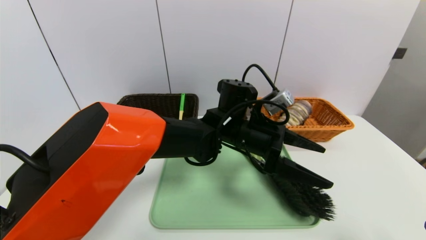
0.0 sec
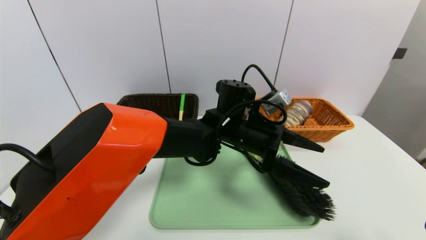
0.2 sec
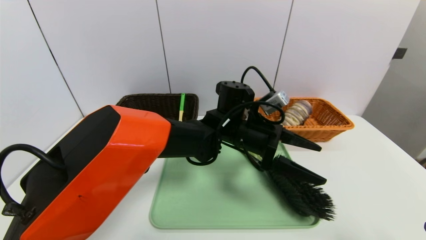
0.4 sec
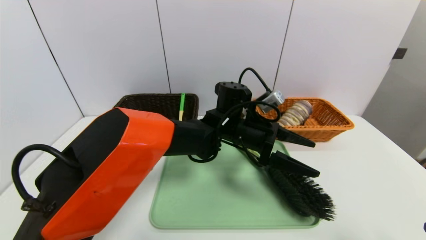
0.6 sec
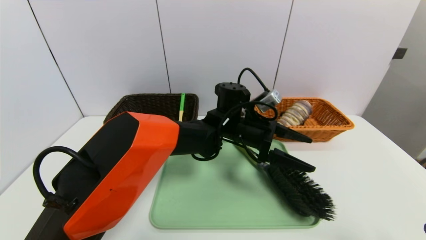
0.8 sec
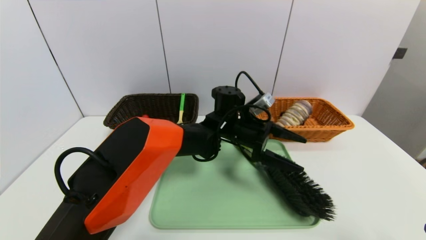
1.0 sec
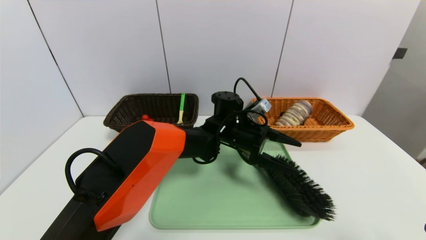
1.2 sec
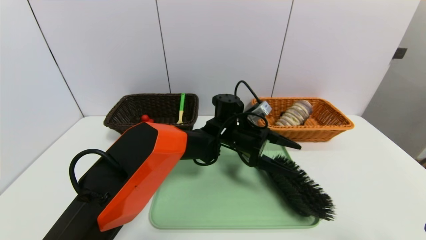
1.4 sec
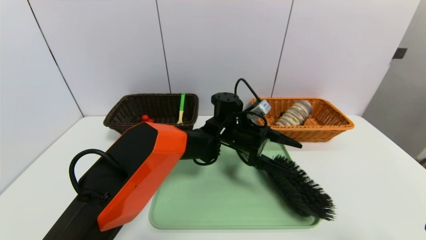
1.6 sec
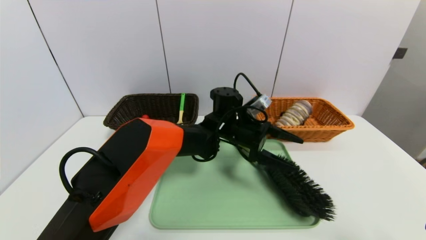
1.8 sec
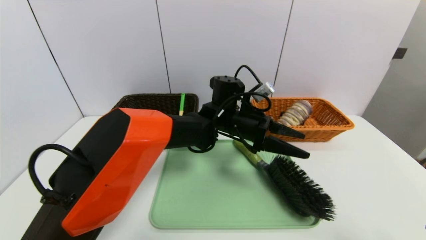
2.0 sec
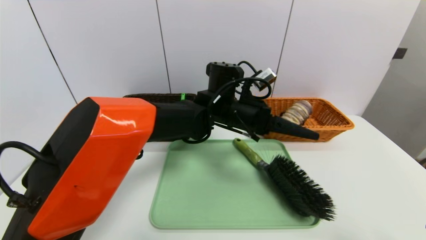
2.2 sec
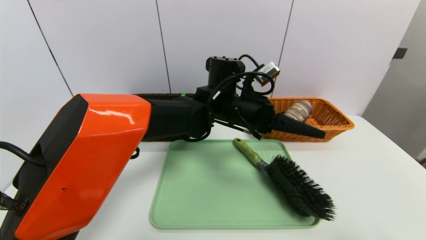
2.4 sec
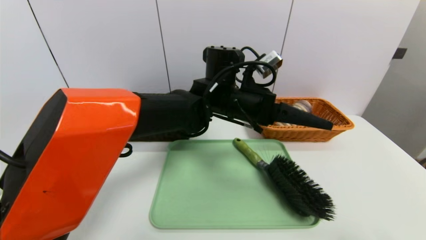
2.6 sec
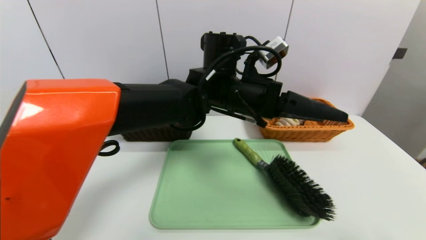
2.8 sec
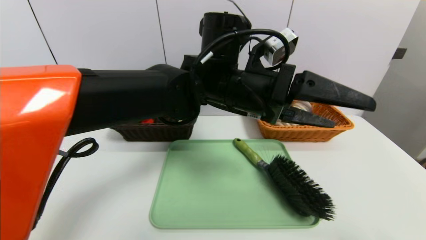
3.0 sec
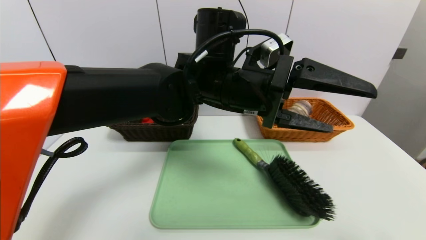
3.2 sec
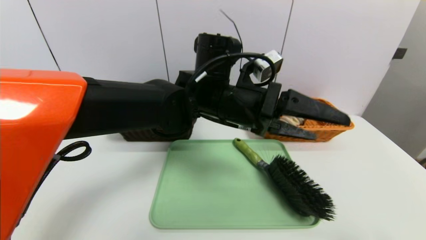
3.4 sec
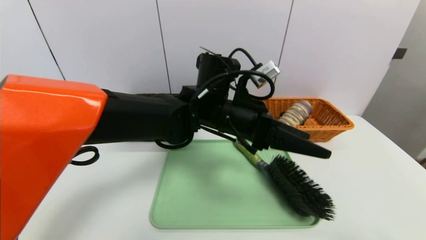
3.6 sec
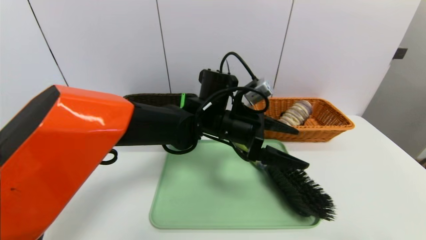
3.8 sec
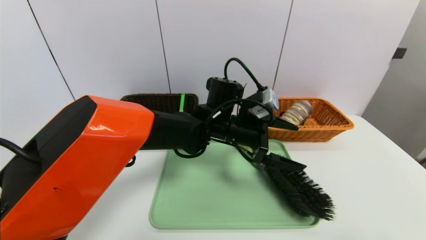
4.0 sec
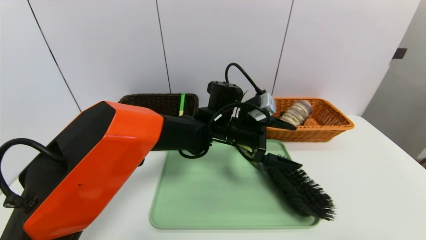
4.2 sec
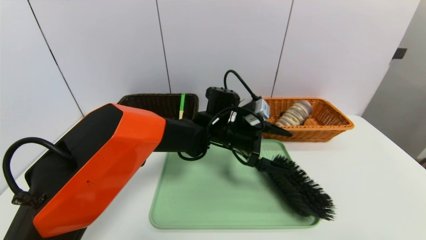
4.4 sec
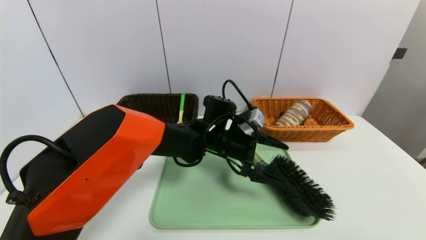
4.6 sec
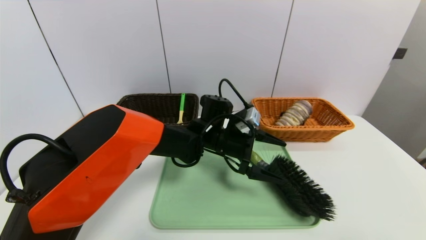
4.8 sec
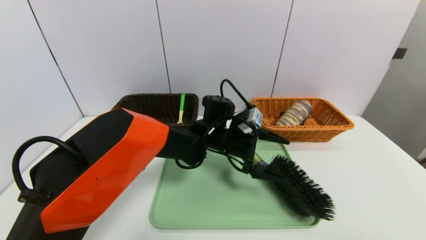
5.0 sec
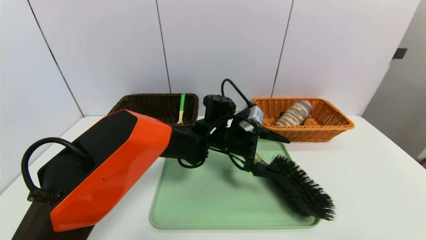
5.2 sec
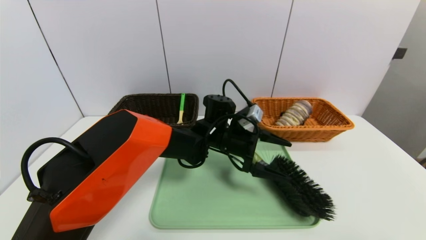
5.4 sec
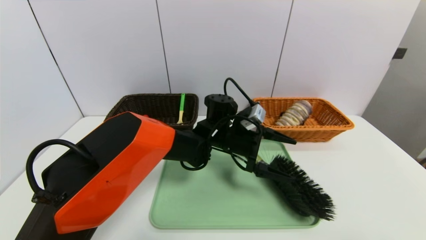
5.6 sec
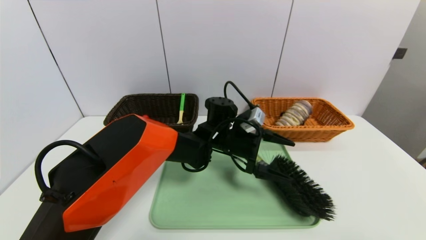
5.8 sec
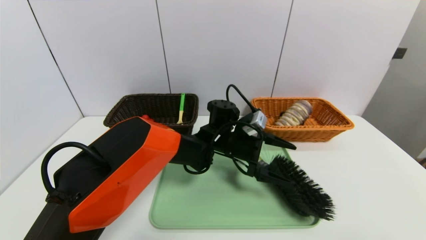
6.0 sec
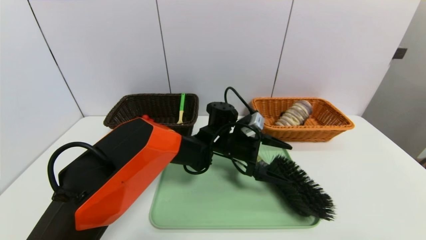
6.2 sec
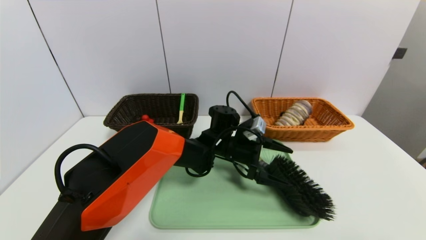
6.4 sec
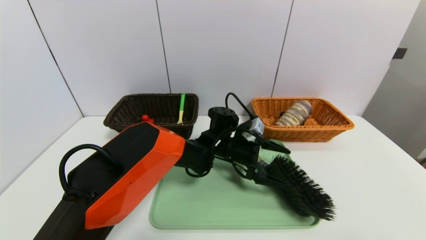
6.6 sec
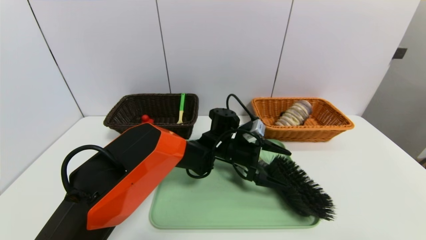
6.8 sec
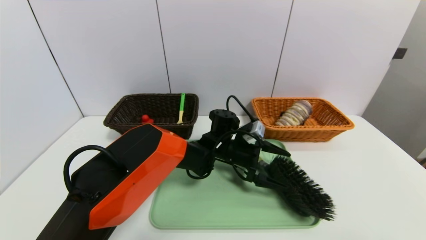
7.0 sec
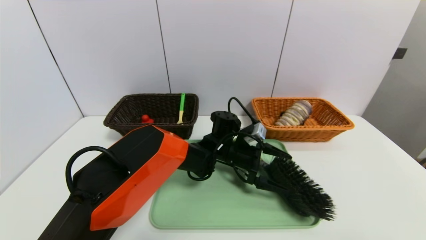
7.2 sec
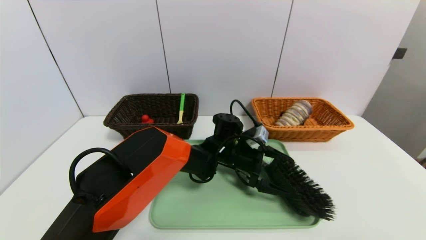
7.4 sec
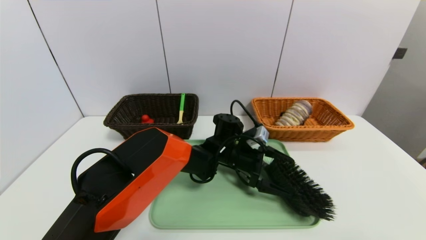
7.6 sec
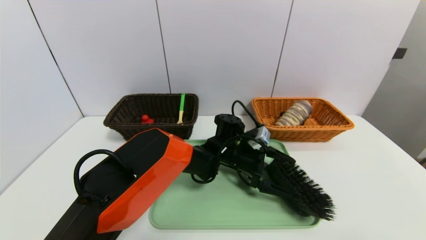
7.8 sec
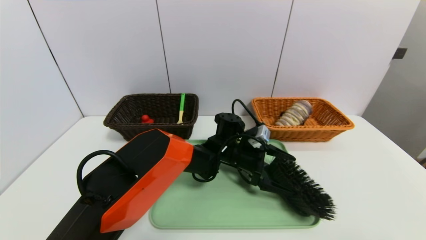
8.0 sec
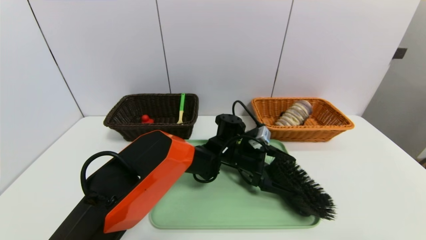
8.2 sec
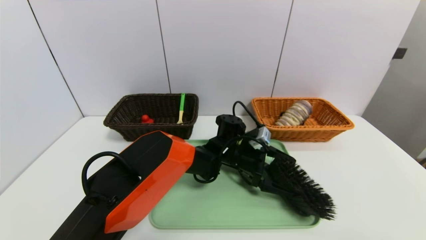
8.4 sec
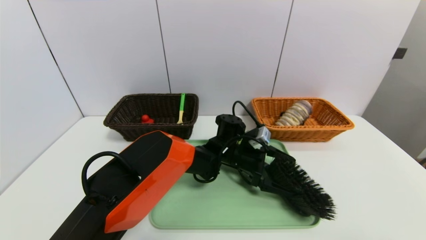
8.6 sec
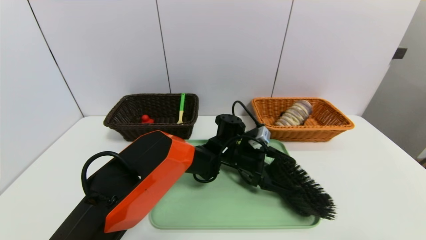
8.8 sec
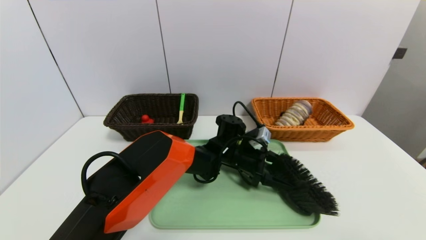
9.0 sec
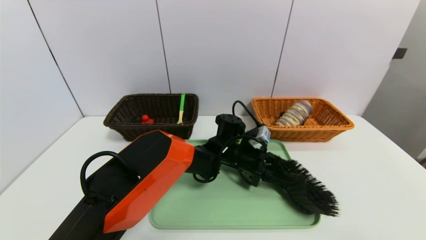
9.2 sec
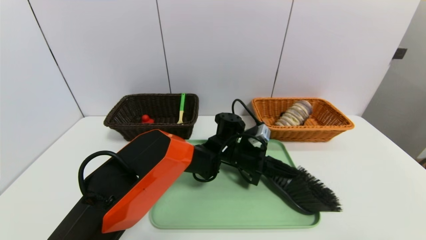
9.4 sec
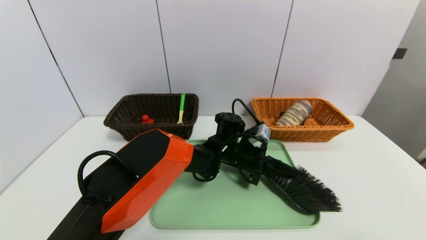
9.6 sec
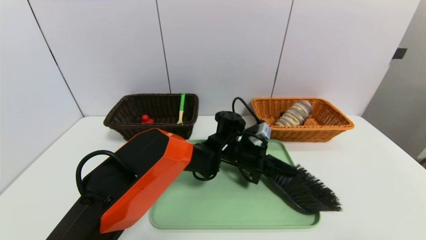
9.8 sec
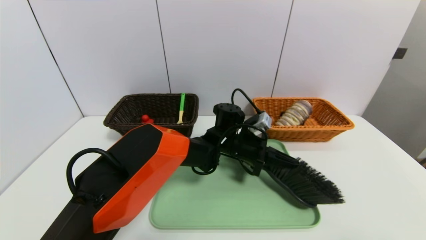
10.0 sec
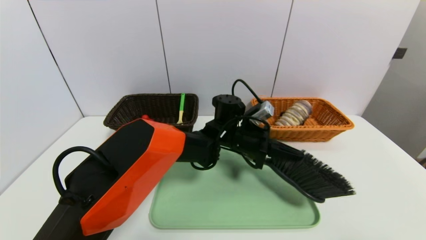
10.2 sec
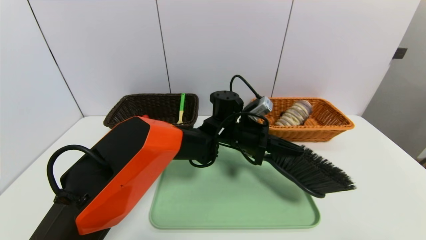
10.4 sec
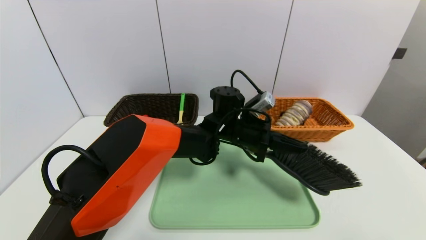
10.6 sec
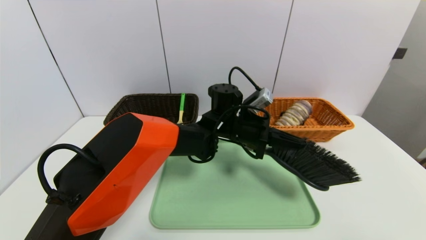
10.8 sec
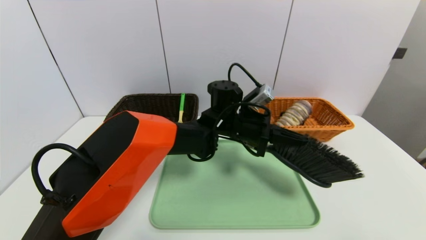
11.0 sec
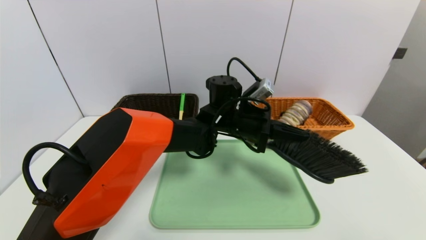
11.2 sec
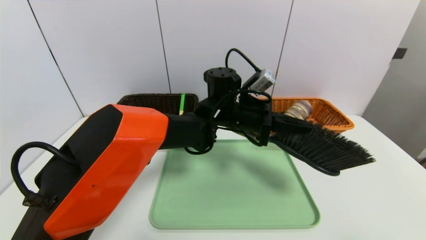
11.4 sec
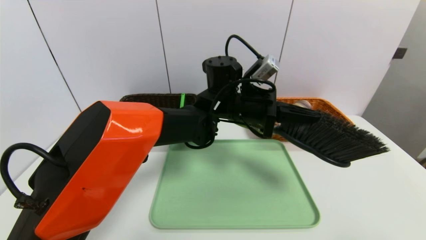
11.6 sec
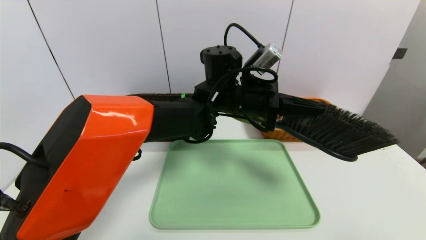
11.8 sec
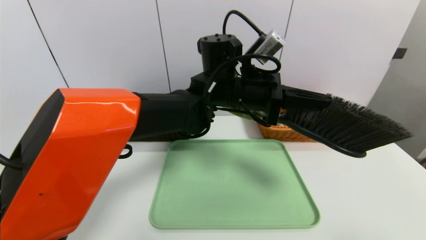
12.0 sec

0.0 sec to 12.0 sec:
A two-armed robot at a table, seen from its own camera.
Task of the whole recording: place the food in the right basket with the right gripper, and place the non food items in the left basket with the left gripper.
0.0 sec to 1.6 sec: The left gripper travels forward and downward by roughly 10 cm.
1.6 sec to 3.0 sec: The left gripper goes approximately 20 cm upward and backward.
3.0 sec to 4.4 sec: The left gripper travels downward and forward by some 15 cm.
4.4 sec to 6.0 sec: There are only small adjustments of the grippers.
6.0 sec to 7.6 sec: The grippers stay close to where they were, moving slightly.
7.6 sec to 9.0 sec: The left gripper closes its fingers.
9.0 sec to 10.4 sec: The left gripper is displaced upward by roughly 5 cm, and closes.
10.4 sec to 12.0 sec: The left gripper heads upward, covering some 10 cm.

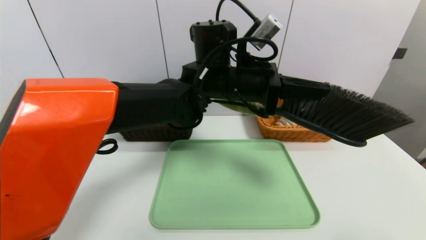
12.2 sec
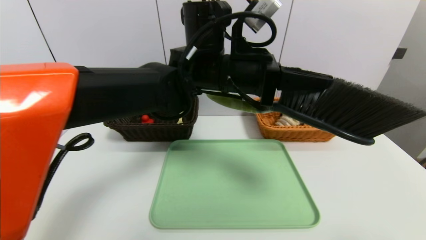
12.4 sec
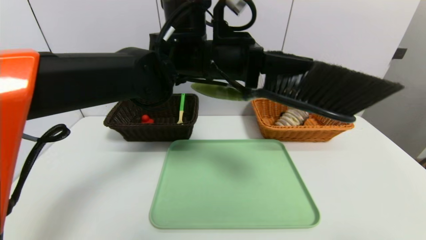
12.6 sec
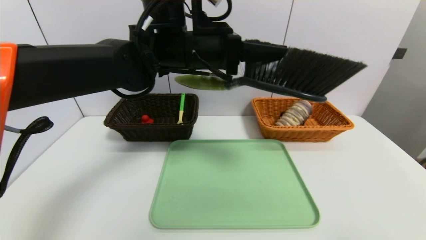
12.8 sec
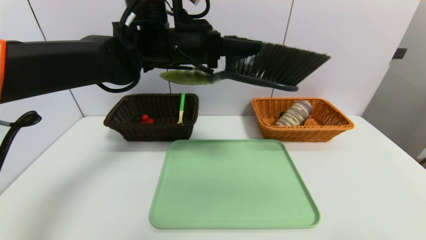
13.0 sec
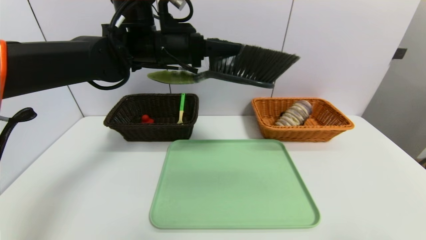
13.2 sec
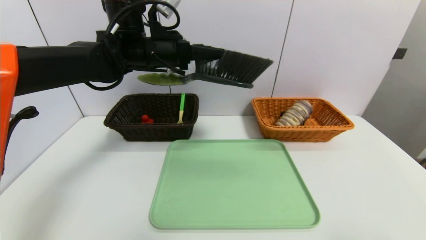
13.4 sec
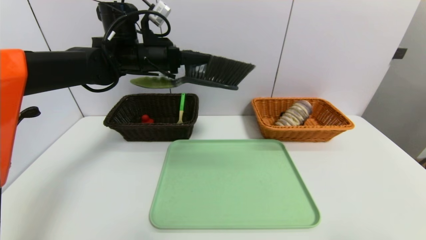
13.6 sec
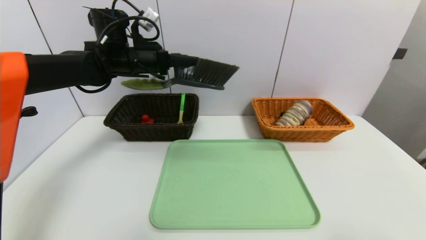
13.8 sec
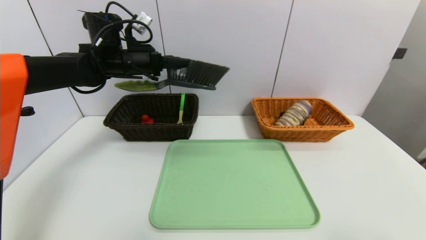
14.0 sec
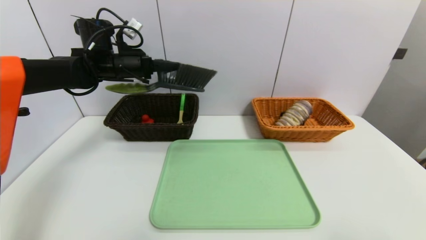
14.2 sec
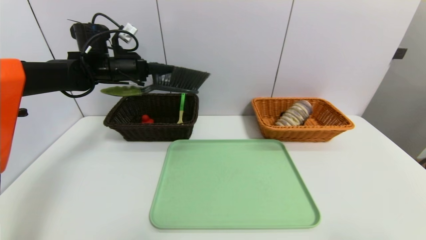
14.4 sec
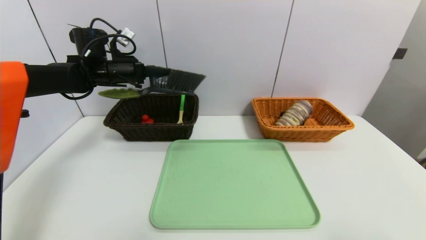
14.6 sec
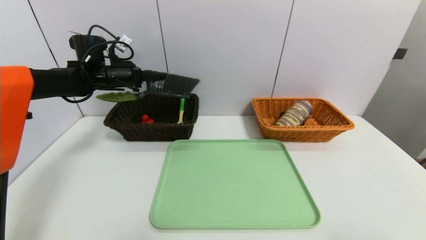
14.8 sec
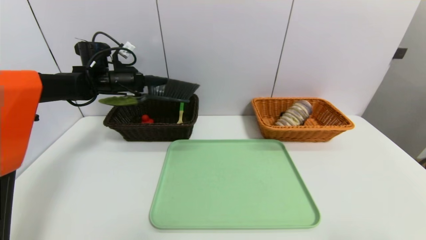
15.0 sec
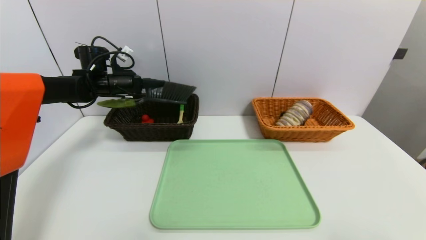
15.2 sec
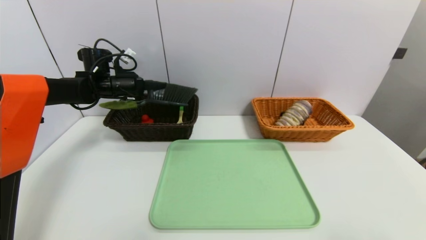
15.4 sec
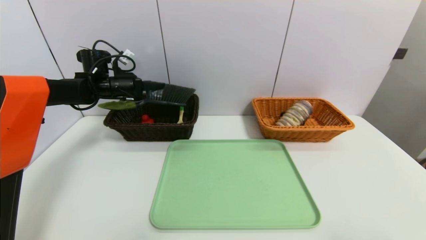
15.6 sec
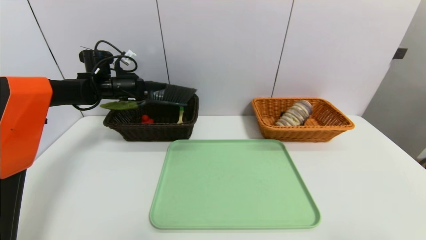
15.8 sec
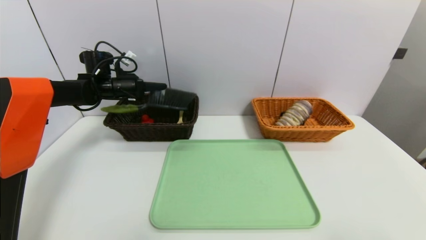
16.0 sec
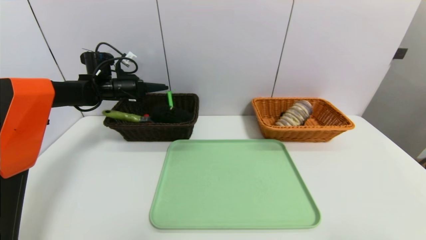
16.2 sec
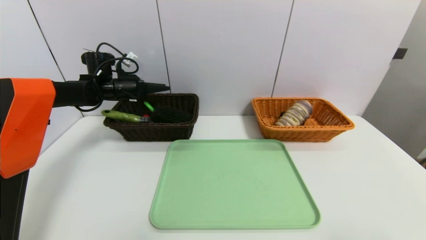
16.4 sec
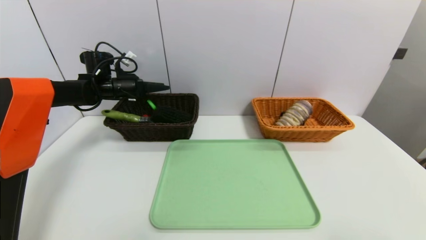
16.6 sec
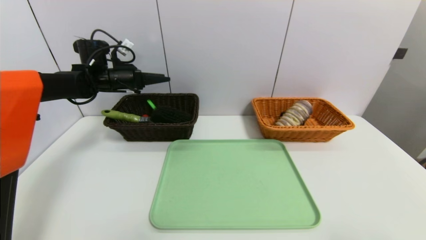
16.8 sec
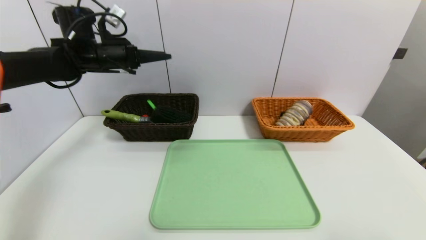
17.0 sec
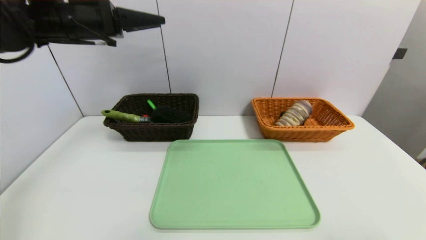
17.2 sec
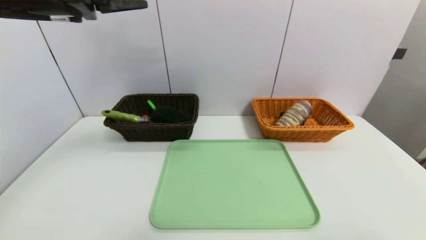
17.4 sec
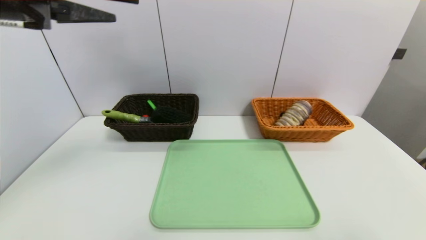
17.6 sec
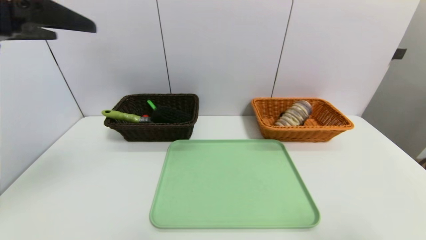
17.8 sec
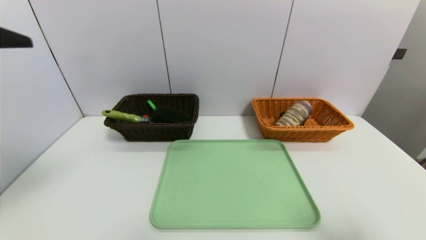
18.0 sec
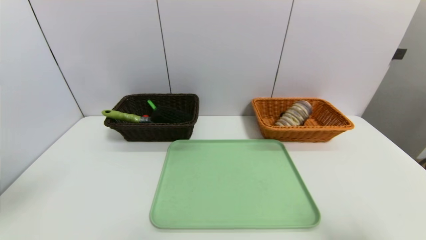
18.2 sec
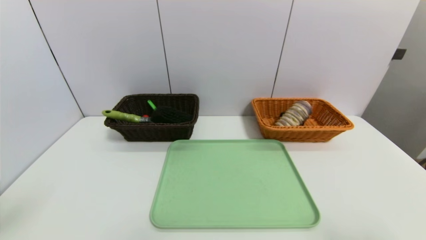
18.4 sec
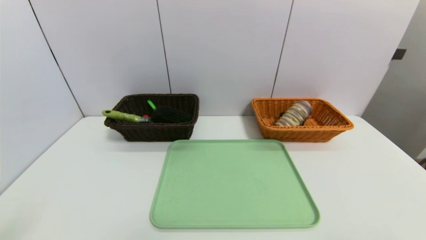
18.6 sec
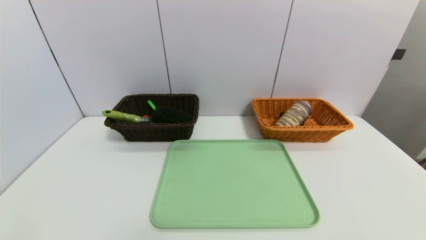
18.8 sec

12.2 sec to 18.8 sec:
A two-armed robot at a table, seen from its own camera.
Task of the whole recording: place the food in the right basket with the right gripper, and place the non food items in the left basket with the left gripper.
Step, 12.2 sec to 16.4 sec: Grasp the brush and put it in the left basket.
12.2 sec to 13.8 sec: The left gripper heads to the left and forward, covering about 25 cm.
13.8 sec to 15.4 sec: The left gripper moves to the left, downward and forward, about 15 cm.
15.4 sec to 17.2 sec: The left gripper moves upward and backward, approximately 20 cm, and opens up.
17.2 sec to 18.8 sec: The left gripper moves backward, roughly 40 cm.
